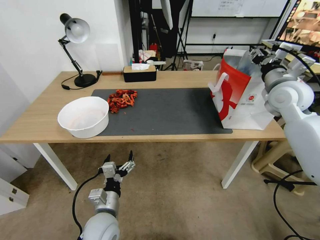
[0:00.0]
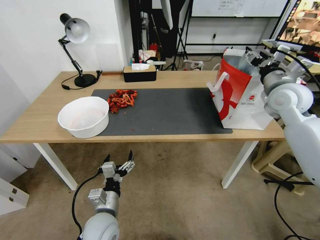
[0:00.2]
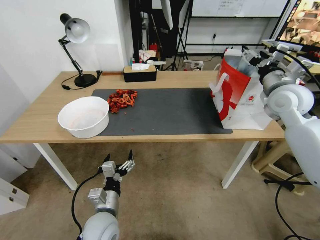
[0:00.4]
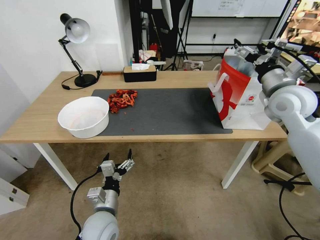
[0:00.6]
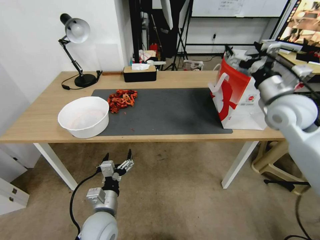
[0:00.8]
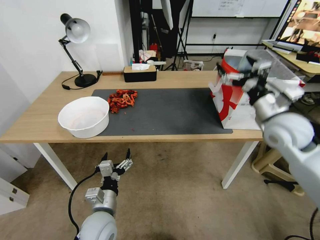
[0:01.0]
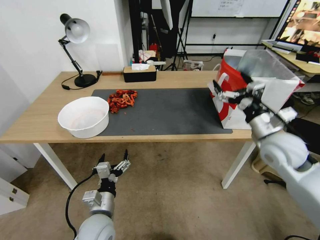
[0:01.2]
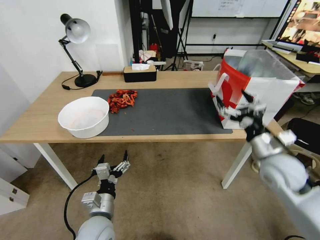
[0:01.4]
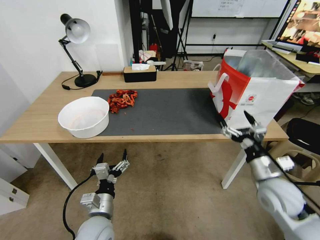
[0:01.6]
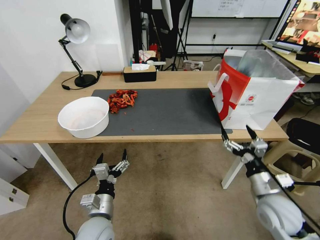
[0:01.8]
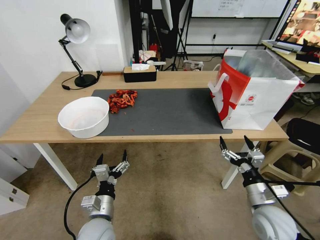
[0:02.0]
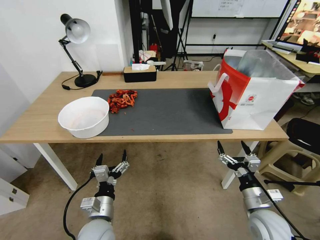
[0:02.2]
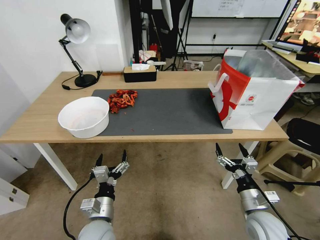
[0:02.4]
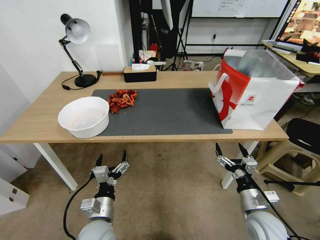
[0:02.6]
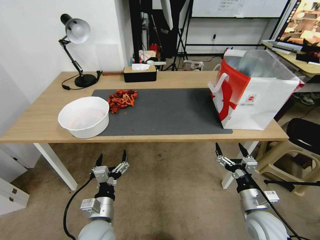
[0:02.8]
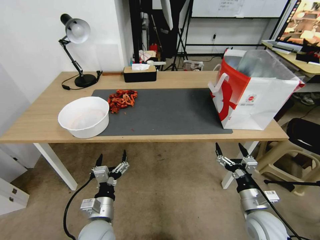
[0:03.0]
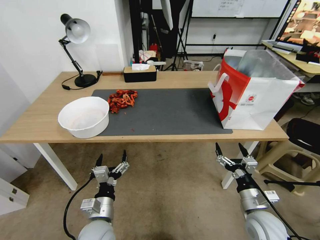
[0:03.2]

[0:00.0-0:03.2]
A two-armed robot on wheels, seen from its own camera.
Task of the whole recording: Close the takeout container lid, then place the container into the takeout bag.
0:00.0 to 0:01.6: The right gripper moves backward and downward, roughly 25 cm, and opens its fingers.
0:01.6 to 0:03.2: The right gripper travels downward and backward by approximately 15 cm.
